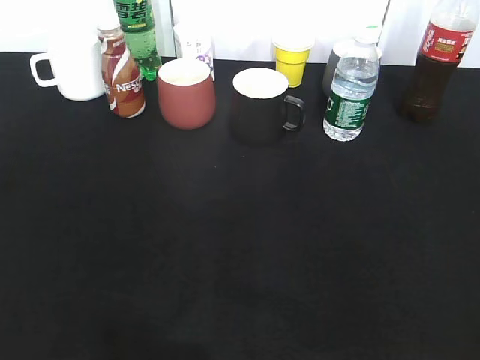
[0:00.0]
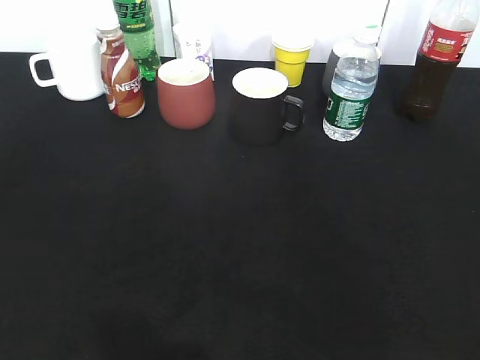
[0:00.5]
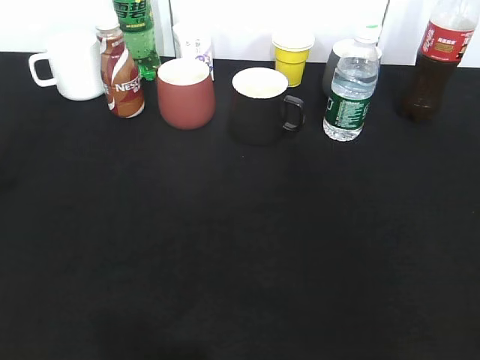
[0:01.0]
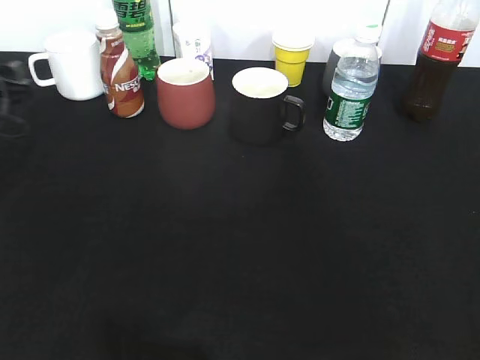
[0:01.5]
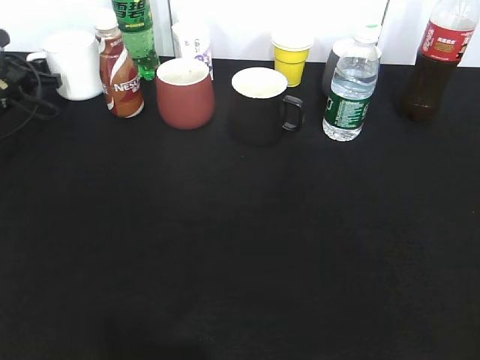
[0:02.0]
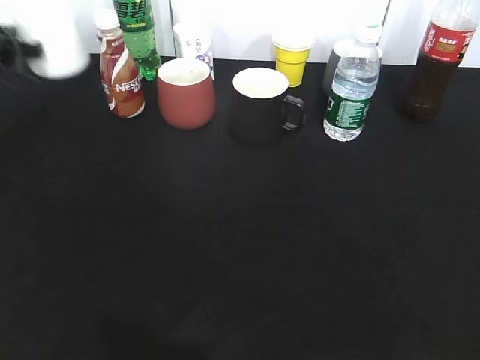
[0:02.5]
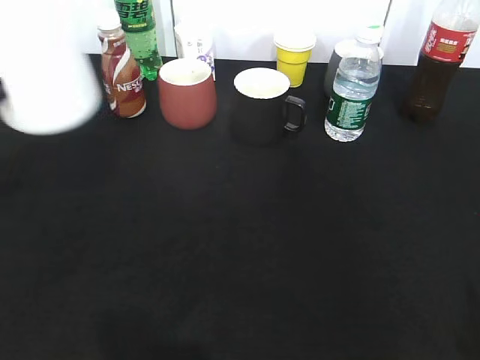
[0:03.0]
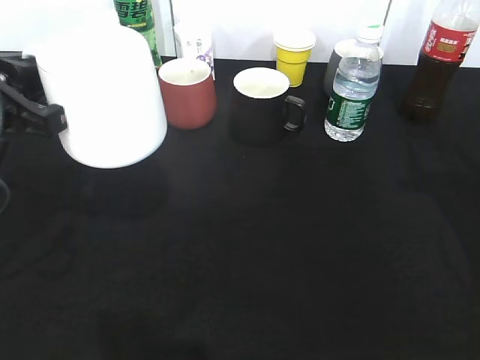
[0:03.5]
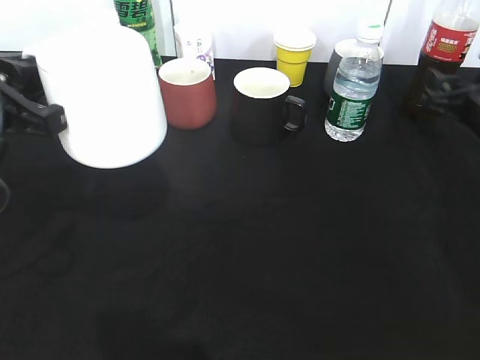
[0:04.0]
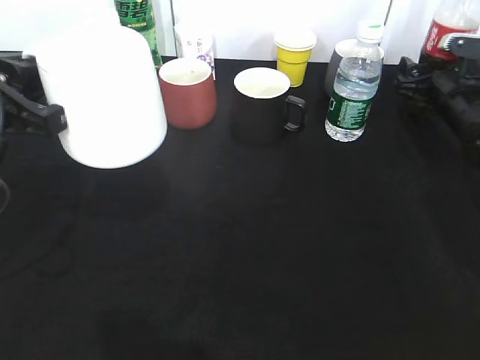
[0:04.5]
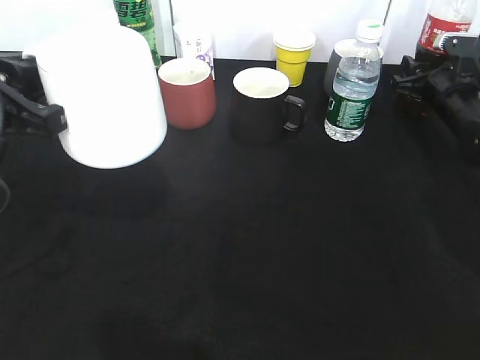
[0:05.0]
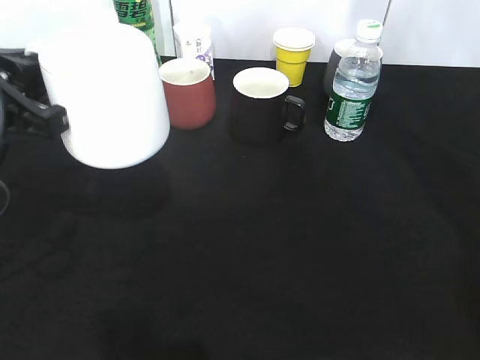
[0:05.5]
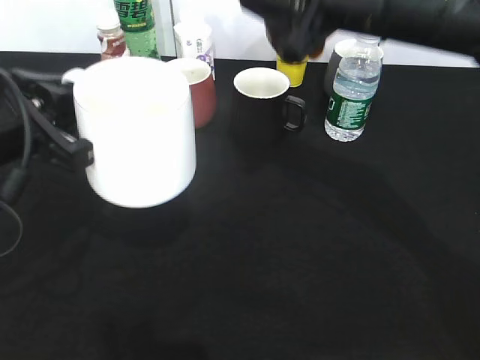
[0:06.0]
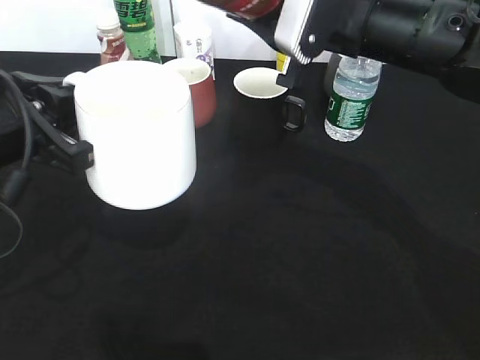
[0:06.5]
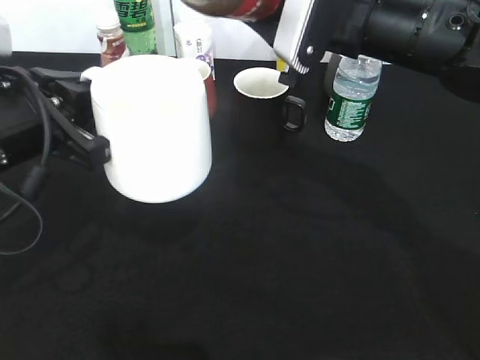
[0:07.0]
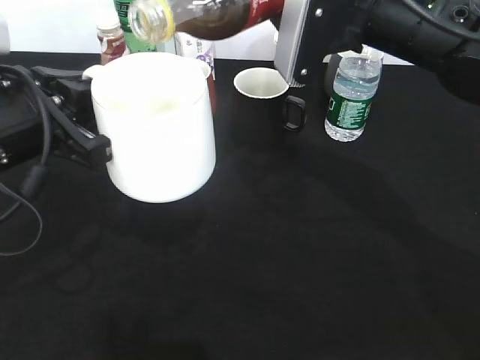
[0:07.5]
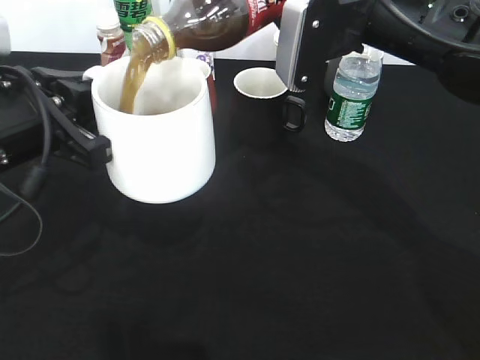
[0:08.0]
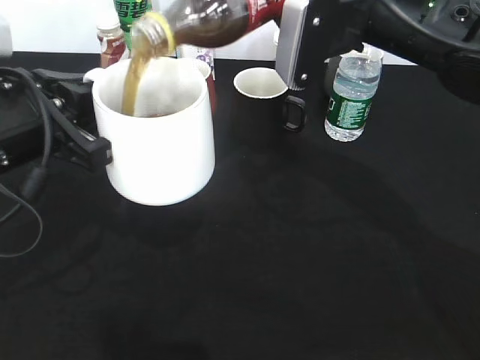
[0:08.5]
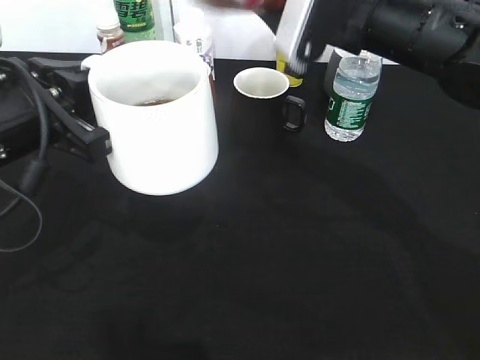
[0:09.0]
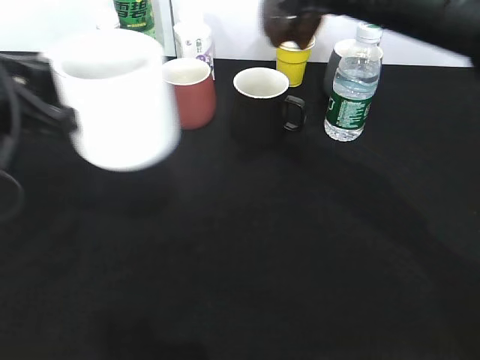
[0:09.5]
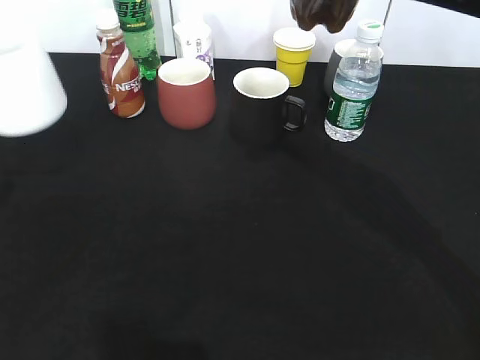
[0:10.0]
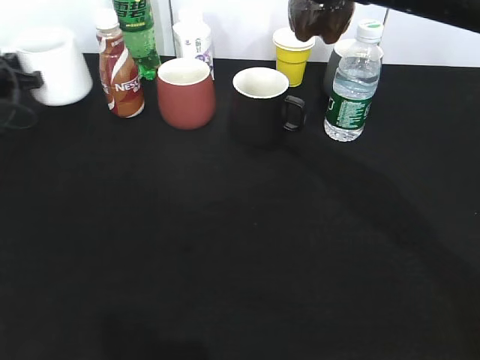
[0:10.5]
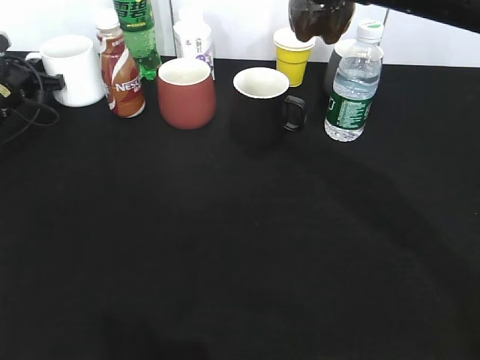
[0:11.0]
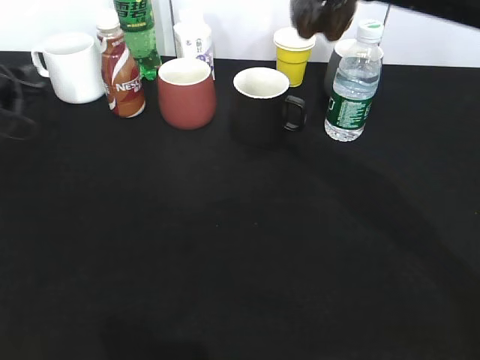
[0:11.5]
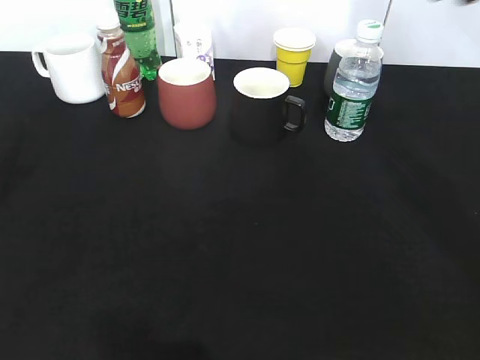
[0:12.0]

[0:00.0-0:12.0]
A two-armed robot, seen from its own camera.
Step, 0.0 to 2.0 s: Grasp the white cup with left gripper.
Step, 2.5 to 3.0 s: Lift the white cup with left gripper.
Step, 4.0 to 5.0 s: Grasp the bottle with cola with right gripper.
Step, 5.5 to 9.0 s: Pour the cola from bottle to cup with right gripper.
Step, 9.5 to 11.5 s: Place the white cup on the table with left gripper.
0.0 to 2.0 s: The left gripper goes approximately 50 cm forward, and closes.
2.0 to 4.0 s: The right gripper goes approximately 35 cm forward. Meanwhile the left gripper shifts some 35 cm backward, upward and to the right, and closes its fingers.
4.0 to 6.0 s: The right gripper goes approximately 25 cm to the left and upward, and closes its fingers.
8.0 to 10.0 s: The left gripper moves to the left and forward, roughly 15 cm, while the right gripper changes place by approximately 5 cm.
10.0 to 12.0 s: The left gripper goes forward and returns, roughly 20 cm each way, and opens its fingers, while the right gripper goes some 10 cm to the right.

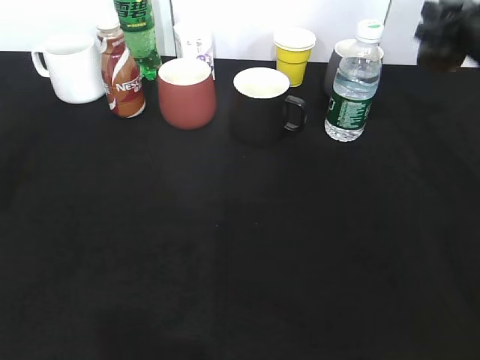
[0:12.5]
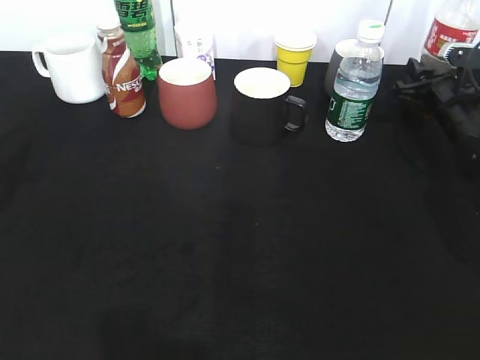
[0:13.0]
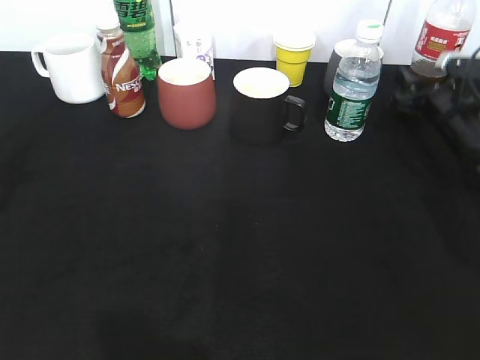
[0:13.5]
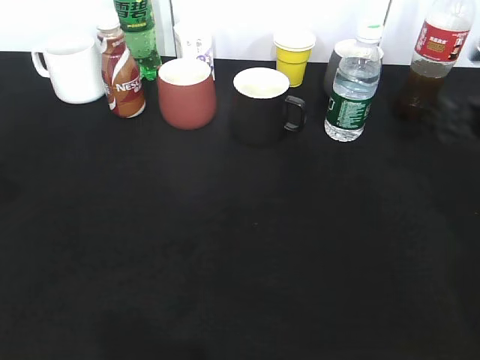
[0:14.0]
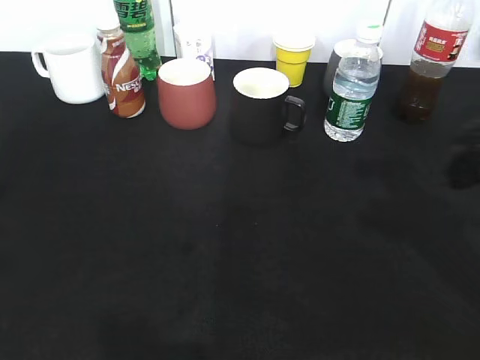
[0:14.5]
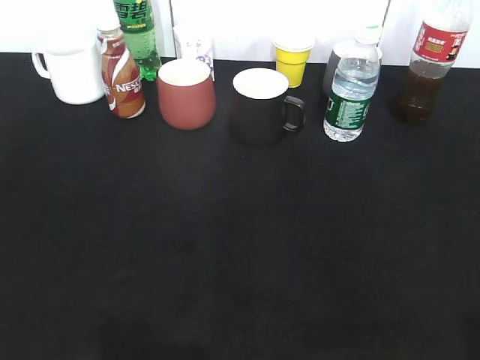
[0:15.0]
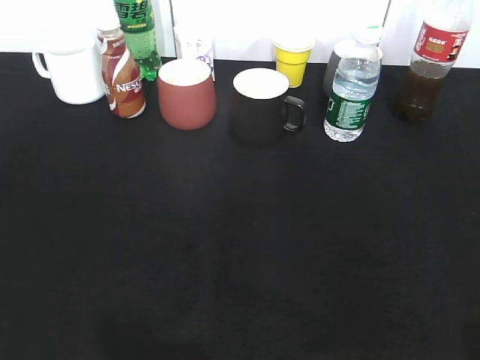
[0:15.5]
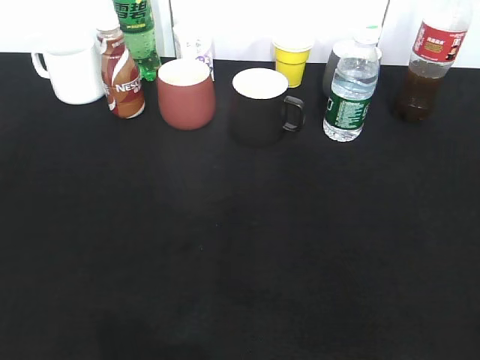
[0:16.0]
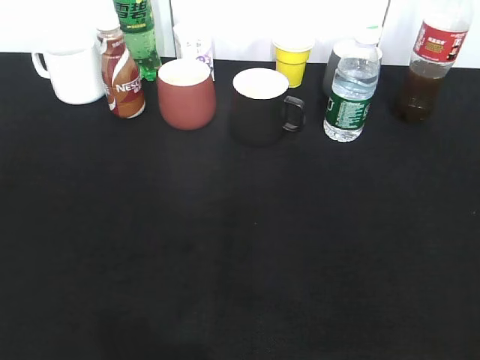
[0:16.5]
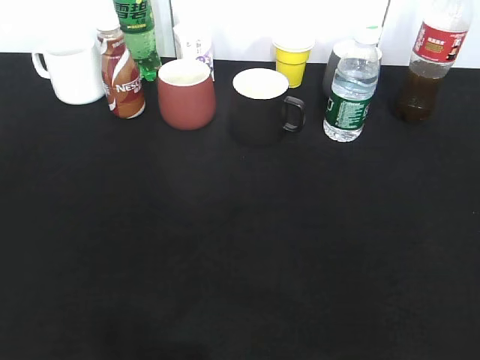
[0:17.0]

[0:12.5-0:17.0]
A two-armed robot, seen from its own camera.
Step, 12.5 to 14.0 s: Place the cola bottle on the table with right gripper.
12.5 to 14.5 s: The right gripper is displaced backward by about 20 cm, and opens.
14.5 to 17.0 s: The two grippers go roughly 20 cm backward.

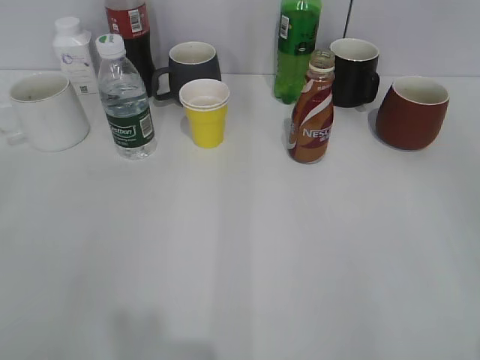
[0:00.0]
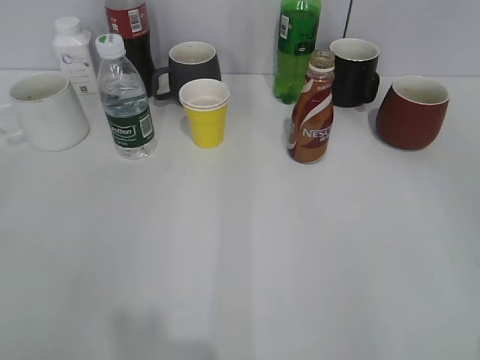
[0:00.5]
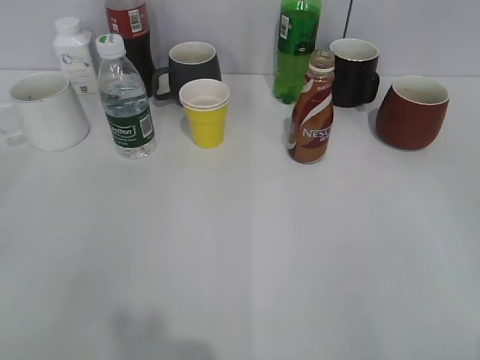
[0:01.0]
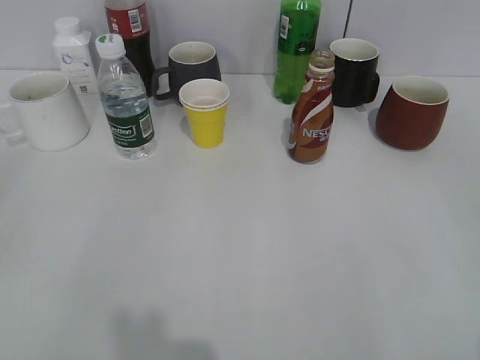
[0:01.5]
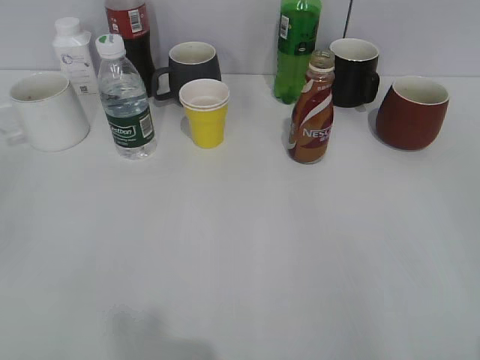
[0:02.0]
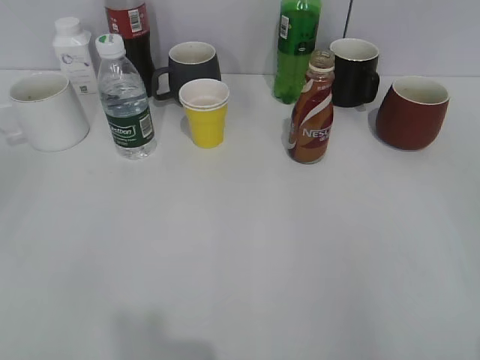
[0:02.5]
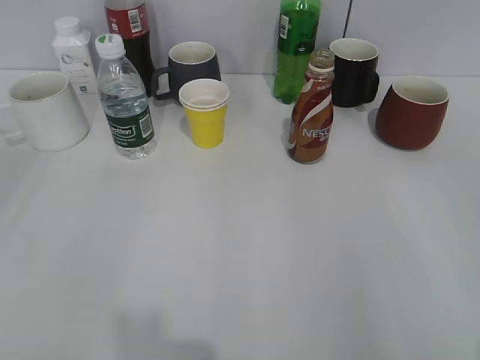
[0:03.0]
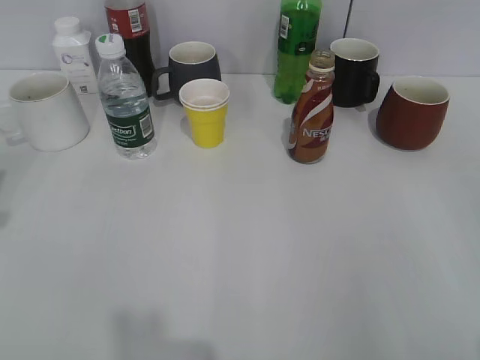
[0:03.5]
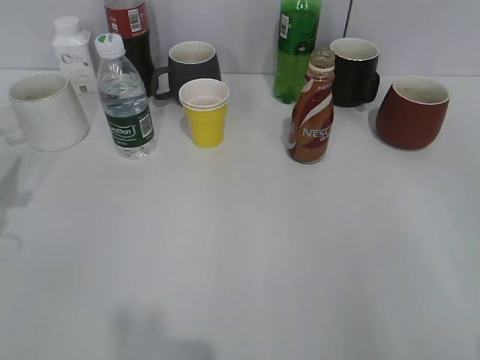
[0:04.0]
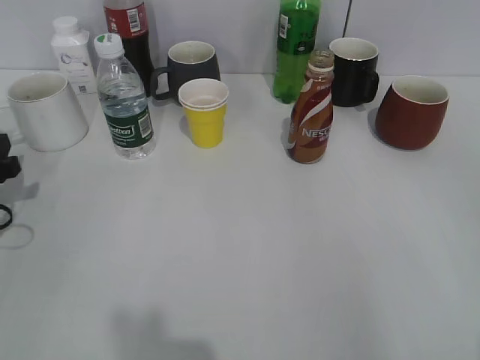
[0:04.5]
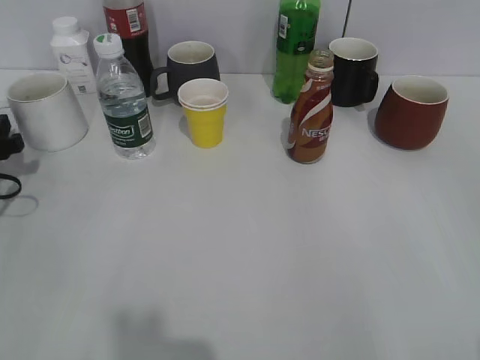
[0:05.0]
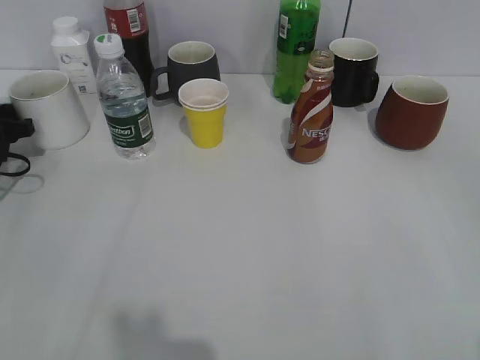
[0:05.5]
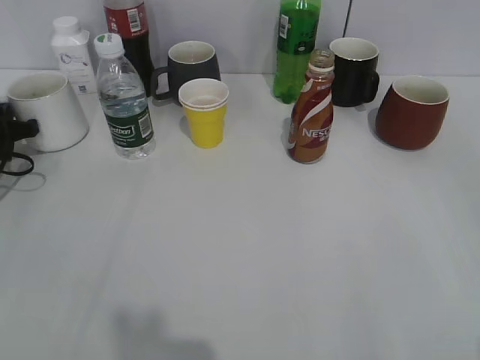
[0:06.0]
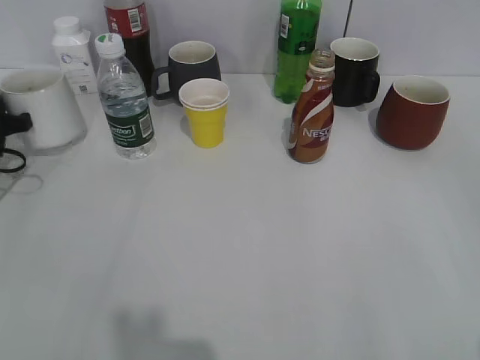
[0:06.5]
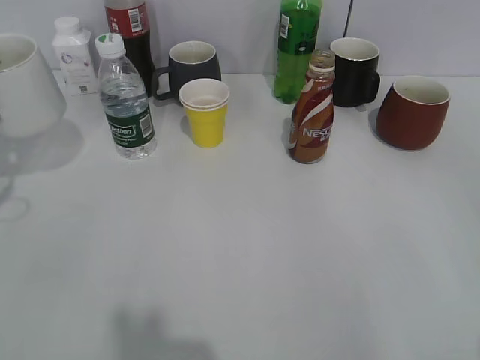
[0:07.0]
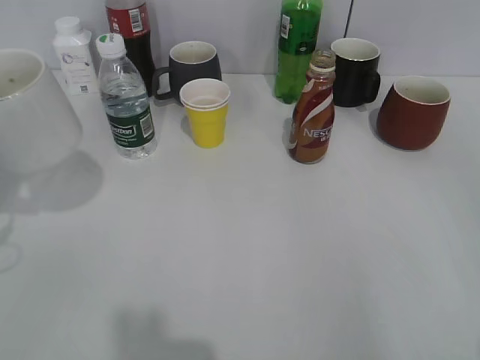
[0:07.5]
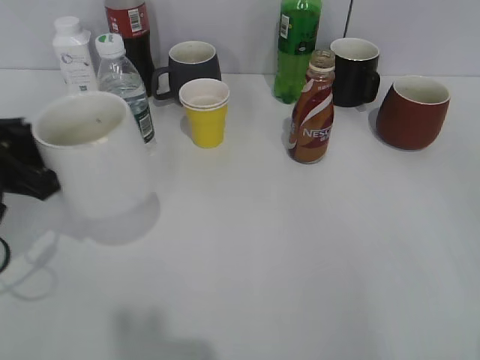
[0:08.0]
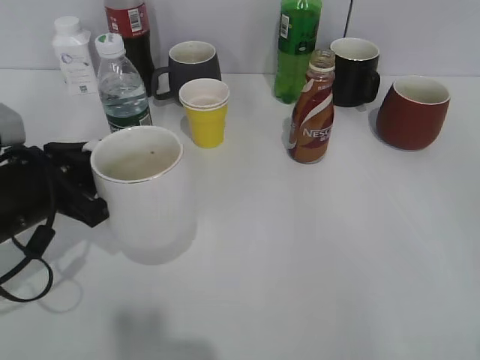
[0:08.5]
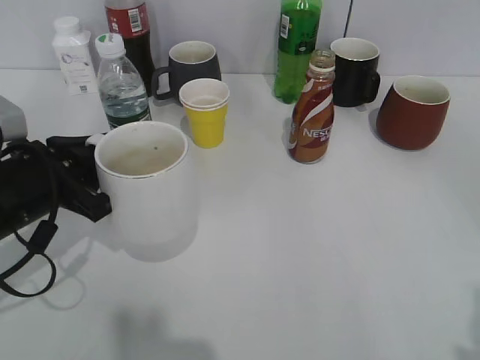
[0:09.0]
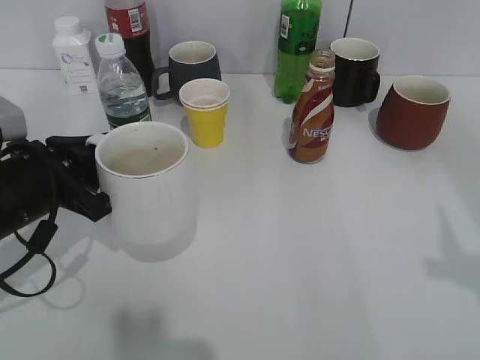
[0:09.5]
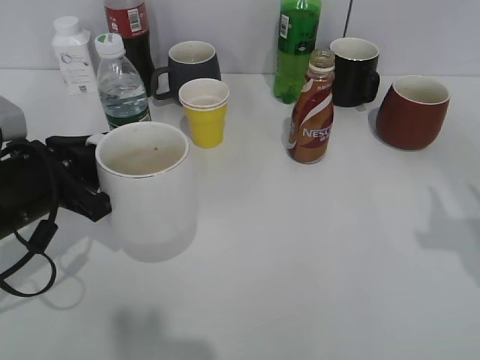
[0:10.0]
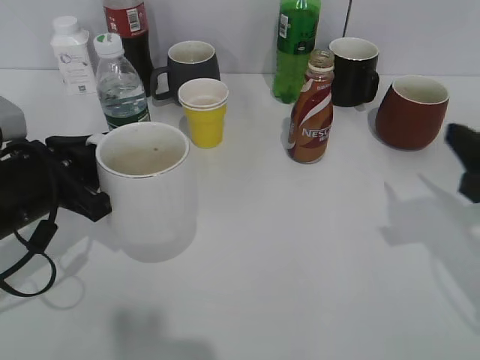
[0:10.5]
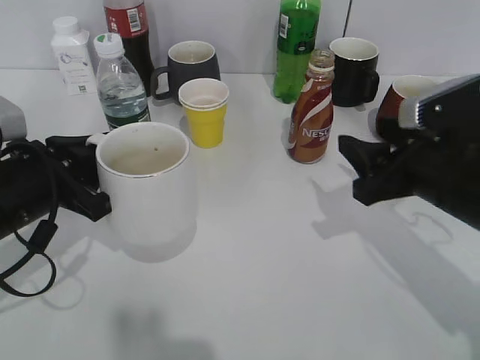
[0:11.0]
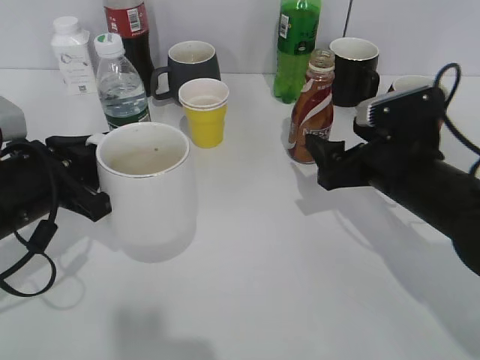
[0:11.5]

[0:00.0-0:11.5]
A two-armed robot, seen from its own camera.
Step, 3.5 to 6.0 s: Grasp the white cup with left gripper.
Step, 6.5 to 8.0 s: Lift the white cup with left gripper.
2.0 to 4.0 s: The left gripper moves forward, about 25 cm.
4.0 to 6.0 s: The left gripper heads forward and downward, covering approximately 15 cm, and closes.
6.0 to 7.5 s: The left gripper shifts some 15 cm backward and upward.
7.5 to 9.5 s: The left gripper is displaced to the right by about 10 cm.
9.5 to 11.5 s: The right gripper travels forward, downward and to the left by approximately 30 cm, and opens its fingers.
